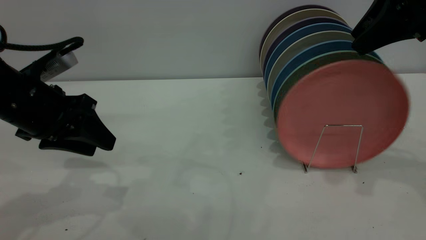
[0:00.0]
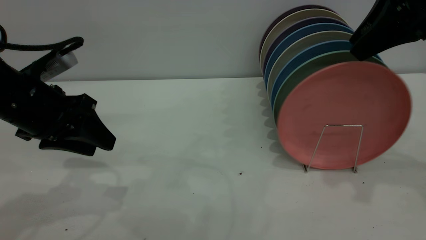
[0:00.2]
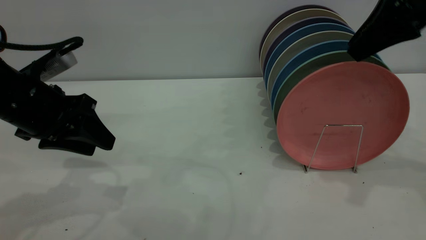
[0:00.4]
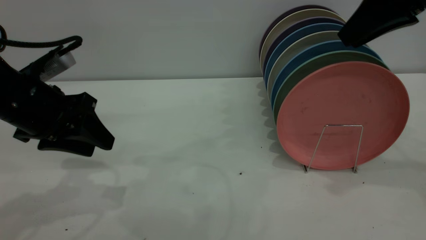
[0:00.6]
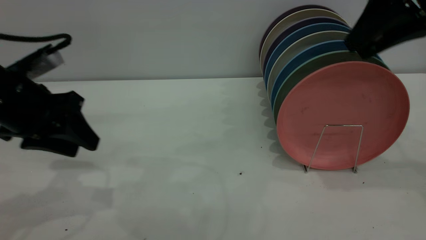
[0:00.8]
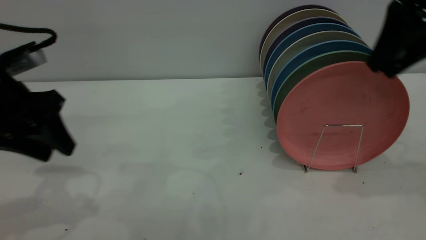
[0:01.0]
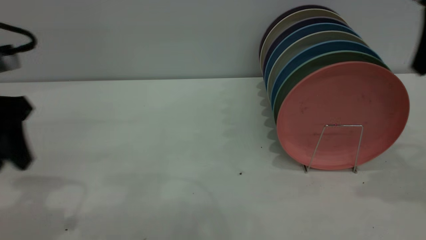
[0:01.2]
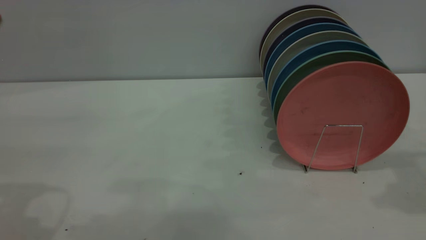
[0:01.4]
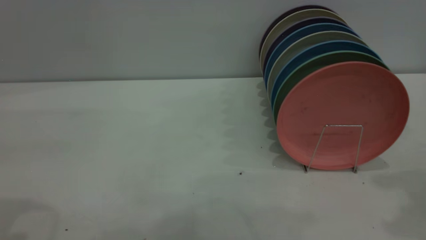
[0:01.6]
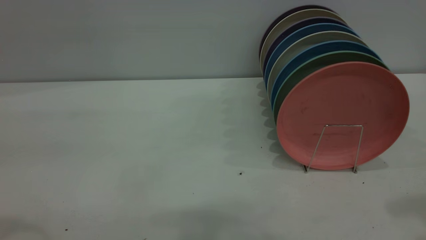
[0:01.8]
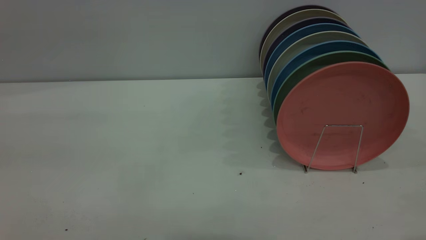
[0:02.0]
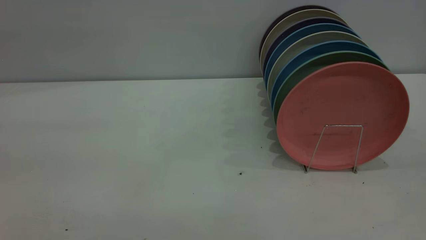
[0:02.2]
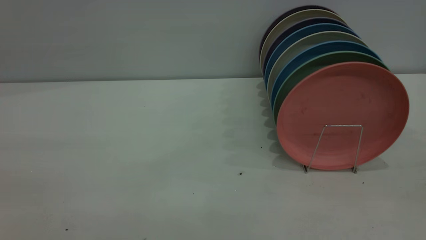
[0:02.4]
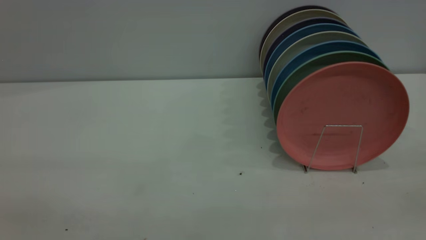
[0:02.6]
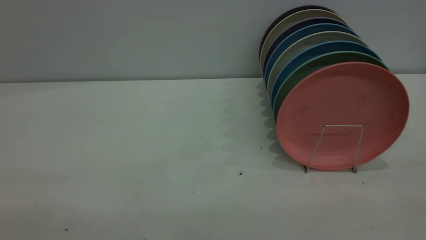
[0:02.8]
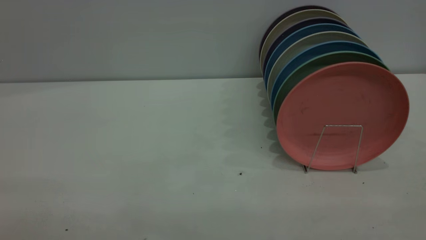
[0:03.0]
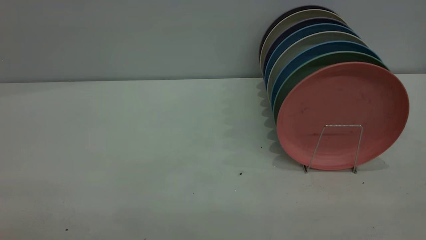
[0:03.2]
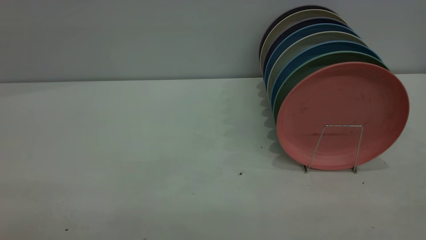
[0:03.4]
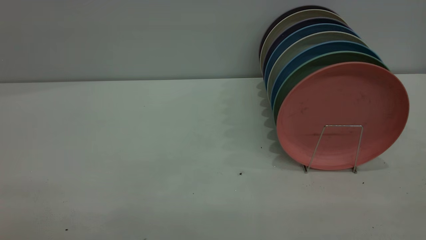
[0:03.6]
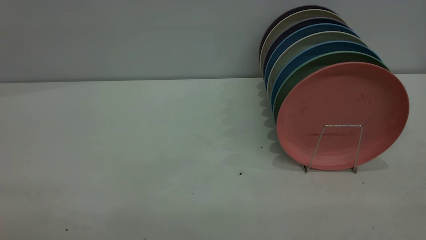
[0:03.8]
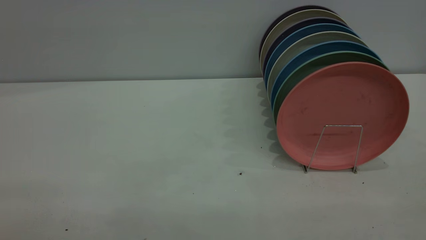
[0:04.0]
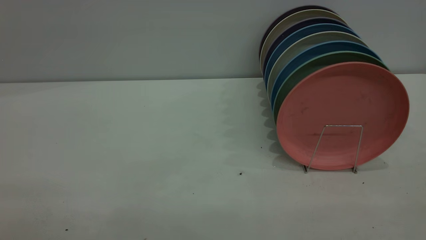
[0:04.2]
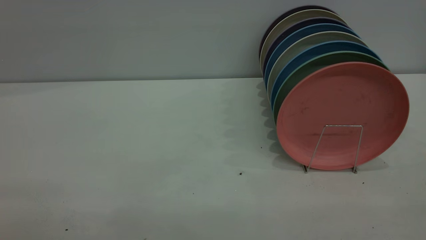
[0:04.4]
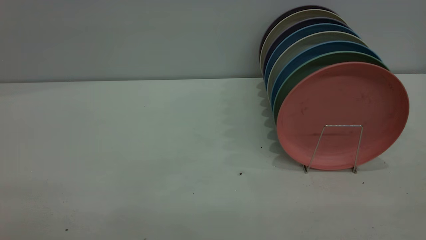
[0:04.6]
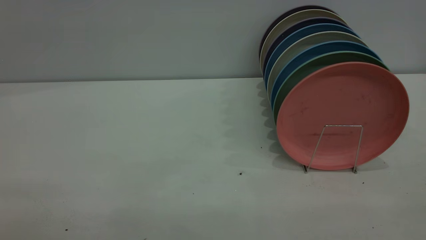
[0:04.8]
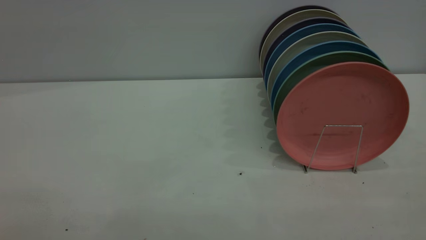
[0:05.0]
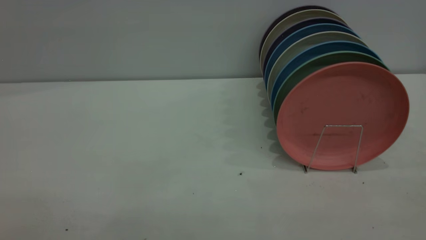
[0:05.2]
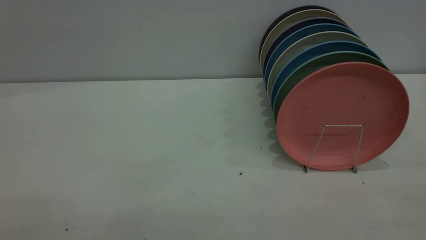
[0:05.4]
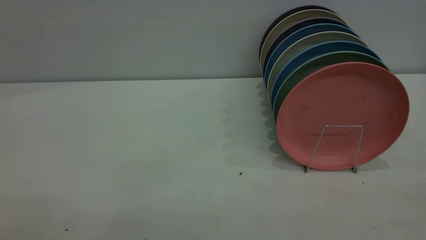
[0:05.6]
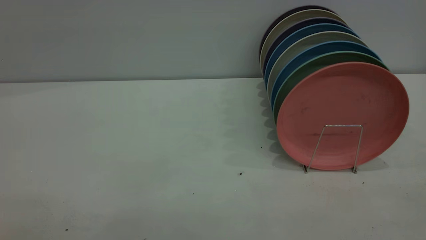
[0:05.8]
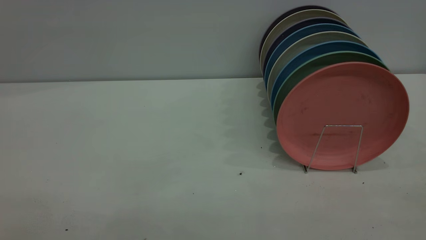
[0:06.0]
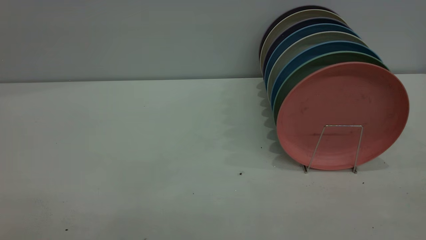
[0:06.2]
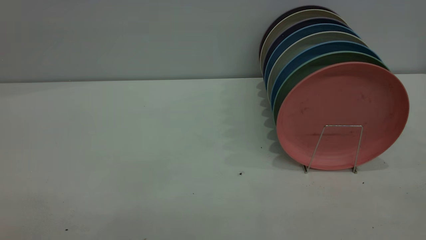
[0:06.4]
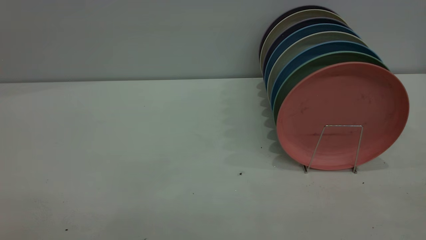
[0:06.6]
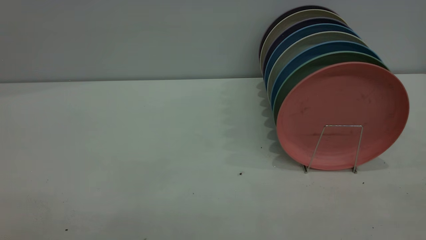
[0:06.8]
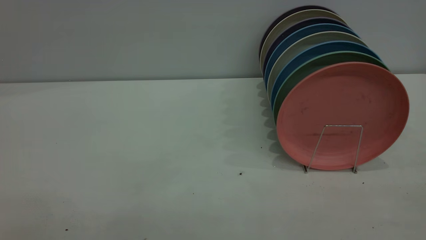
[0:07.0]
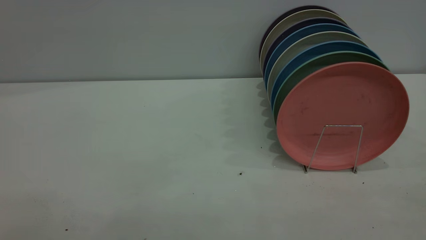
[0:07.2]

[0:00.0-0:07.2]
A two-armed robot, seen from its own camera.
Task of the whole recording: put the plate on the plate rack.
0:00.0 to 0:01.4: The right gripper moves backward and upward, approximately 10 cm, while the left gripper shifts some 10 cm upward and backward.
0:05.8 to 0:07.2: Both grippers stay about where they are.

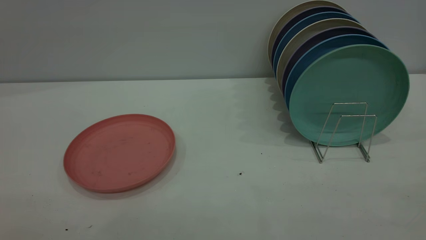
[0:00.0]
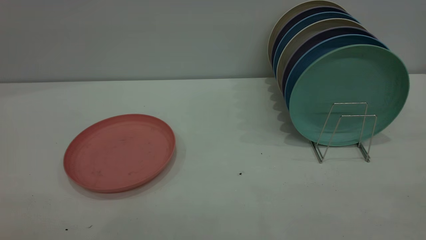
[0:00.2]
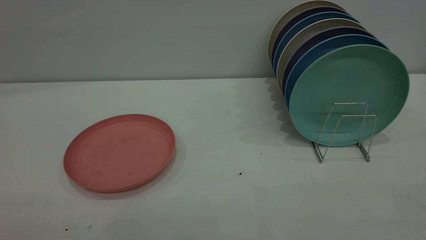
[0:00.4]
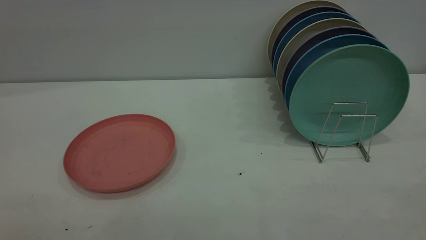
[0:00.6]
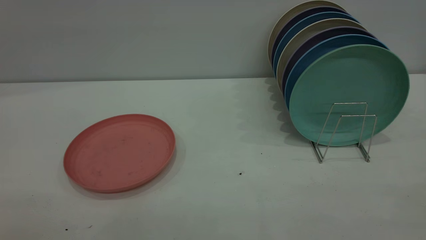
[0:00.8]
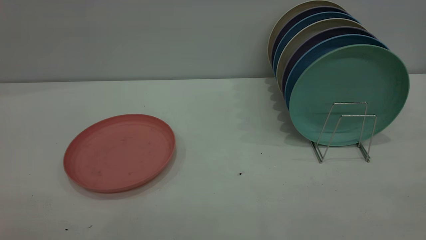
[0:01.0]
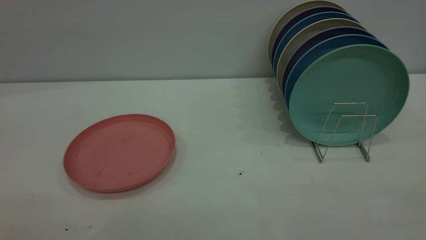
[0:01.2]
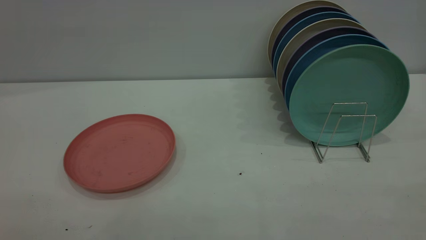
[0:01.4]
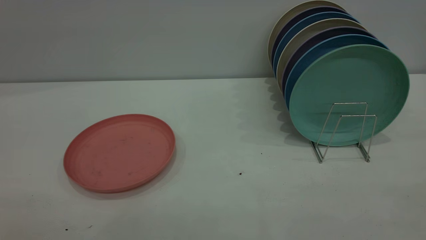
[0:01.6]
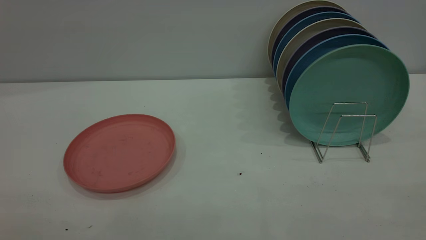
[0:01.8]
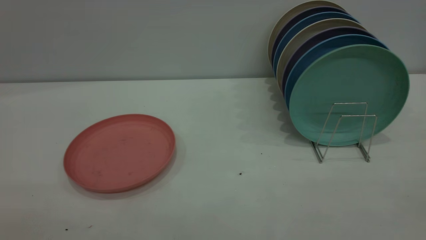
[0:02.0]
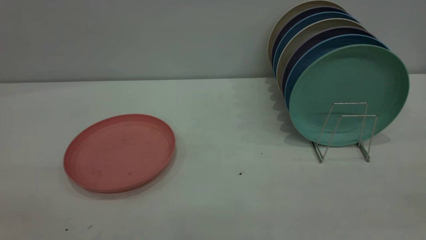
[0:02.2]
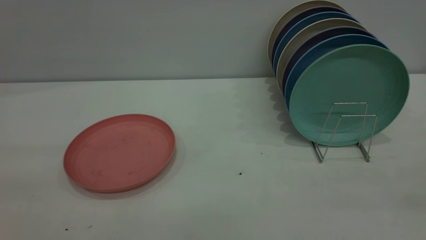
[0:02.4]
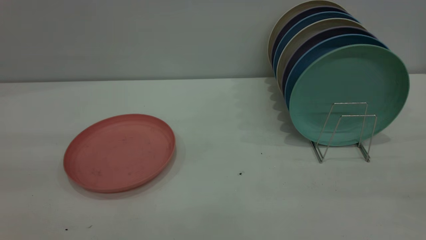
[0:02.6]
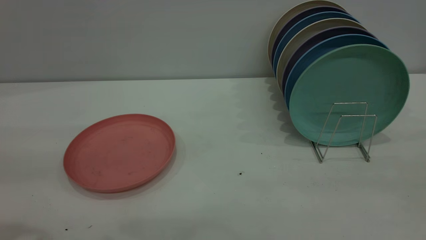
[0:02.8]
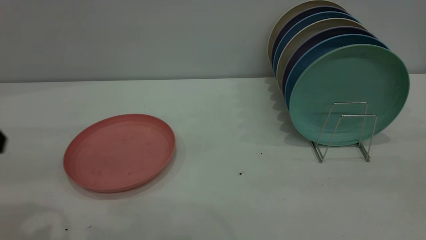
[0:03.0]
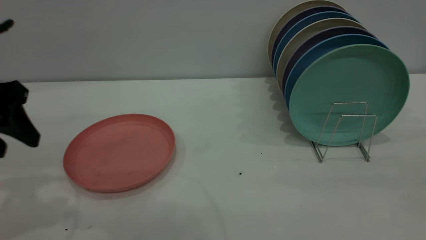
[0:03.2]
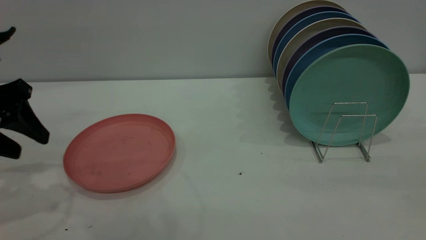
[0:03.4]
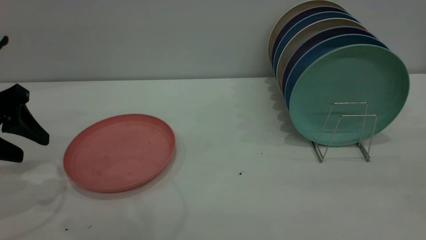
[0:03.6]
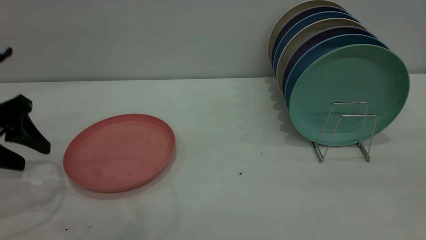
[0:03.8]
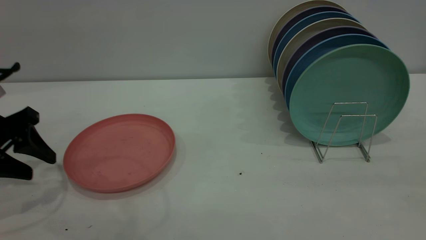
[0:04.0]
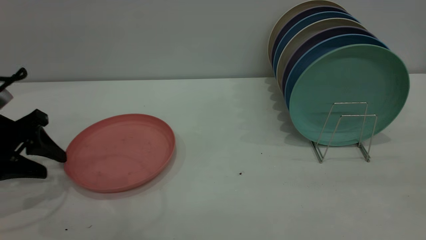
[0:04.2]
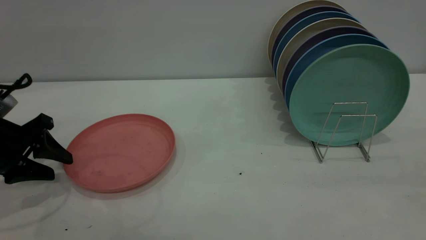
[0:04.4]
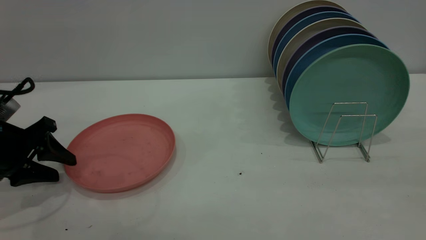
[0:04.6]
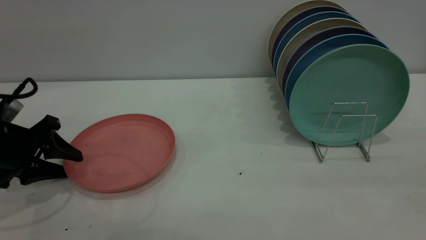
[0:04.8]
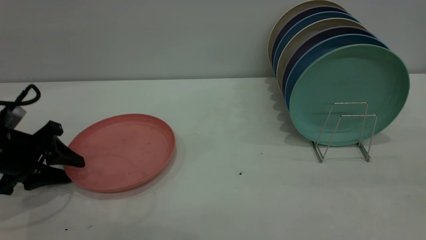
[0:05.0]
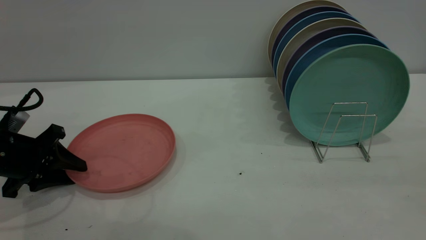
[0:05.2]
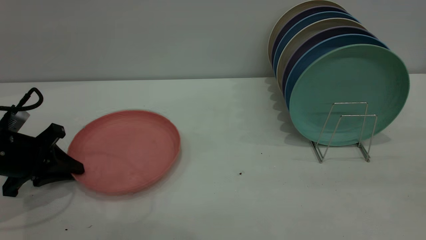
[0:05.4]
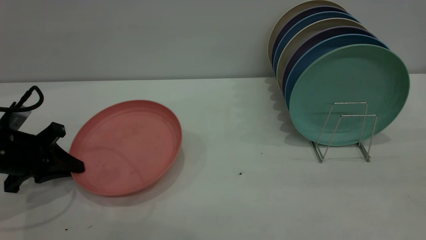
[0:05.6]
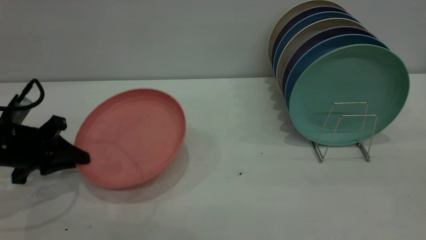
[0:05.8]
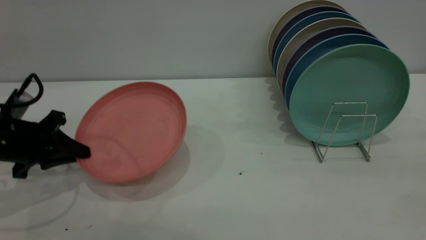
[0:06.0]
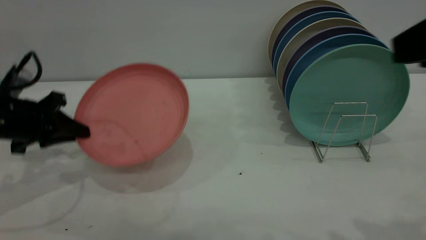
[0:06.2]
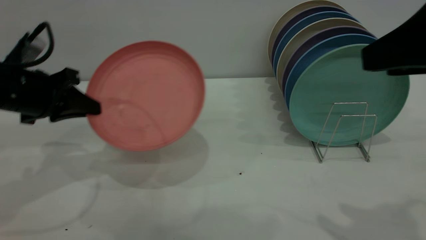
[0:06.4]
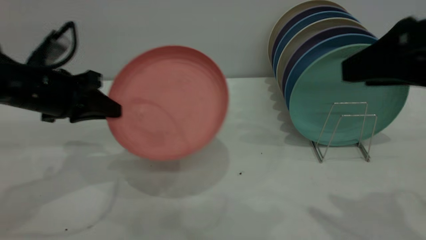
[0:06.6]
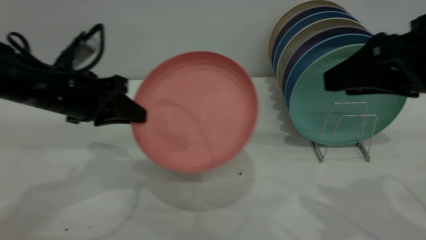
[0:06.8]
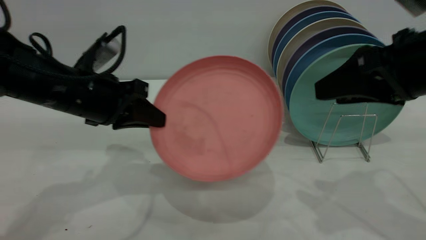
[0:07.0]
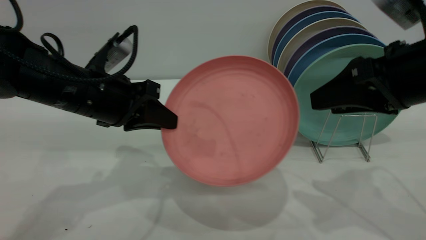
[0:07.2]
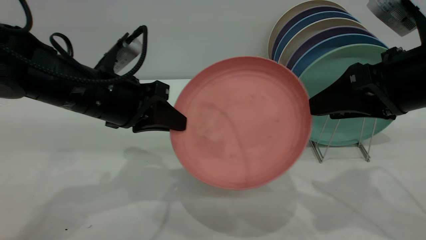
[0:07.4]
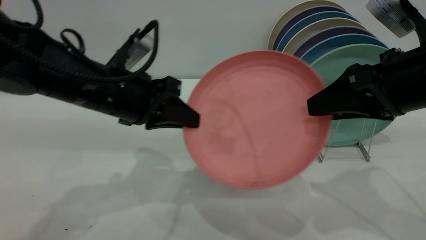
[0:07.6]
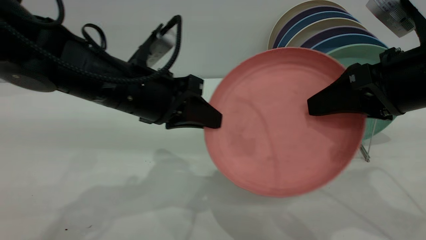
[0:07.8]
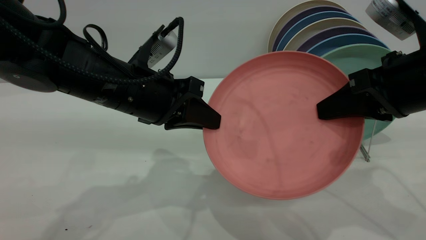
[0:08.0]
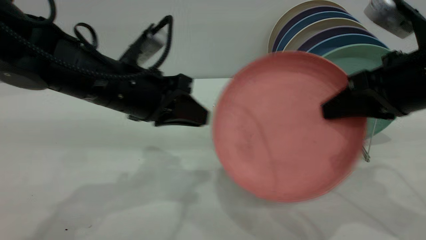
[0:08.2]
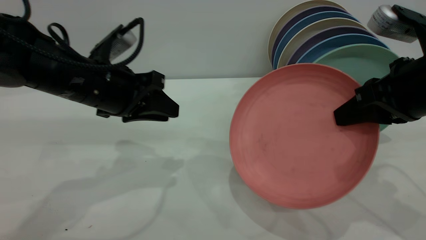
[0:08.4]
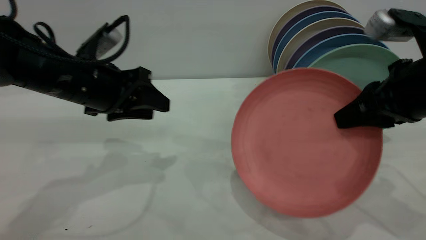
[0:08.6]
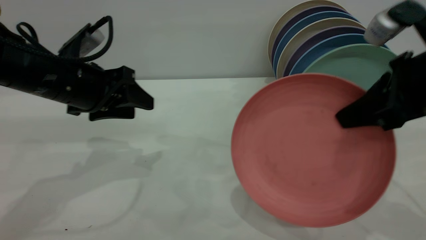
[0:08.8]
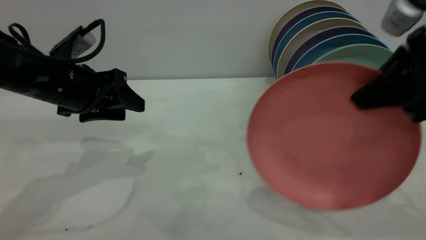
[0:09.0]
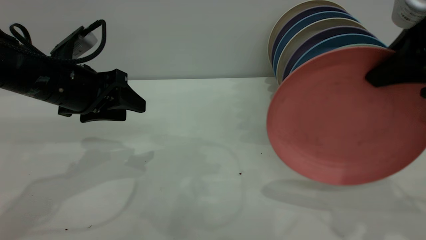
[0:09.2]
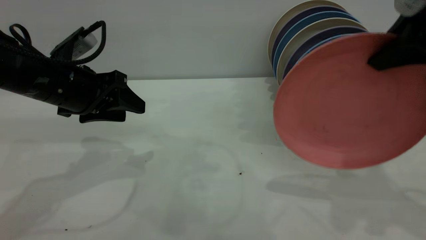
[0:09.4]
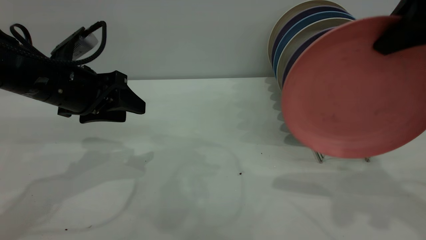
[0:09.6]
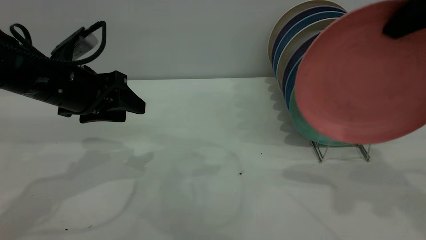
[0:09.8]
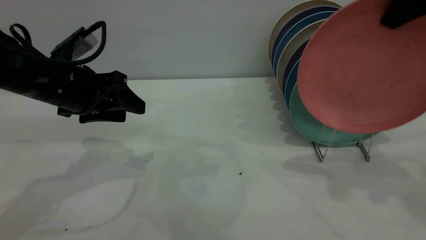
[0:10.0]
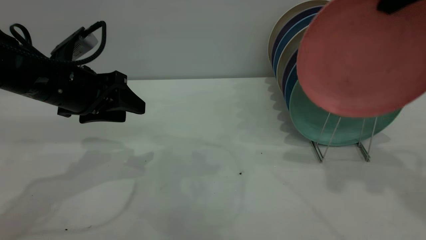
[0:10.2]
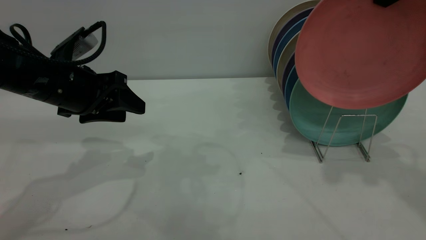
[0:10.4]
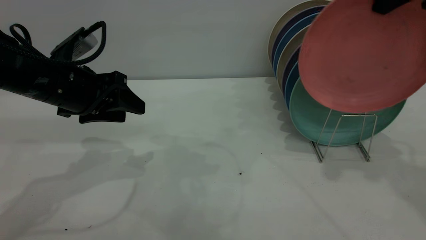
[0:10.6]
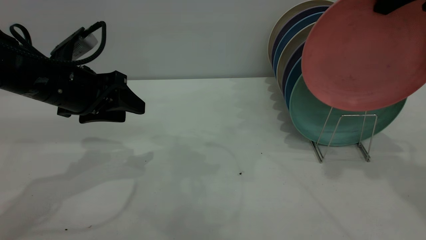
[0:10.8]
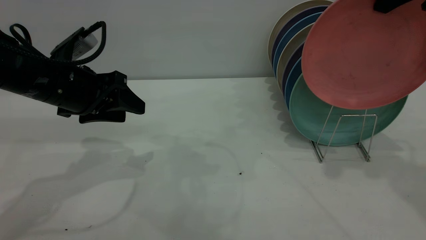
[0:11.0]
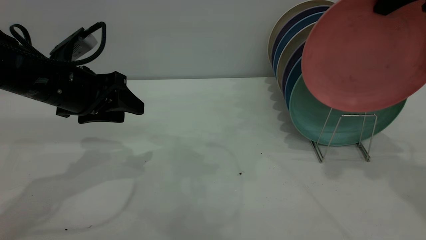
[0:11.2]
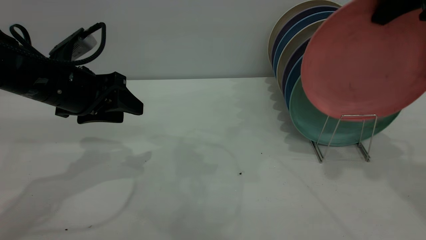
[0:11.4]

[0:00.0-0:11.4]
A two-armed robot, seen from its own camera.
Task of the whole recording: the left gripper grasp the pink plate, the left gripper pass the pink plate to the right gripper, and the right gripper place the pink plate on the plate rack.
Step, 0:00.0 to 0:05.8: Pick up the plate with the left gripper.
Step, 0:06.0 to 0:08.2: Pass the plate from the left gripper to the right gripper.
0:00.0 to 0:01.4: Neither gripper changes place.
0:02.8 to 0:04.2: The left gripper travels downward and forward by roughly 20 cm.
0:04.2 to 0:05.6: The left gripper closes up.
0:05.6 to 0:07.2: The right gripper is displaced forward and downward by about 25 cm. The left gripper is displaced to the right and upward by approximately 15 cm.
0:07.2 to 0:08.6: The right gripper closes its fingers; the left gripper reaches about 5 cm to the right, then returns, and opens its fingers.
0:08.6 to 0:10.0: The right gripper is displaced upward and forward by approximately 15 cm.
0:10.0 to 0:11.4: There are only small adjustments of the grippers.
